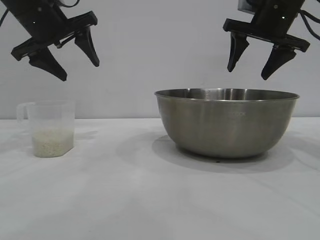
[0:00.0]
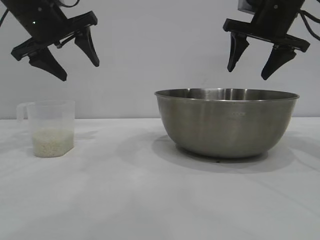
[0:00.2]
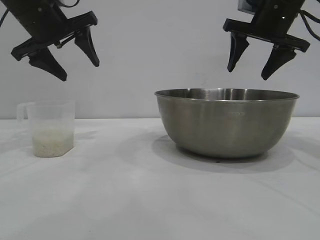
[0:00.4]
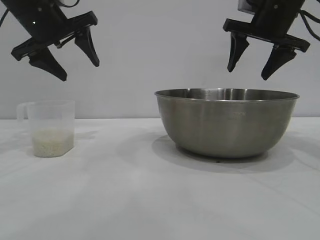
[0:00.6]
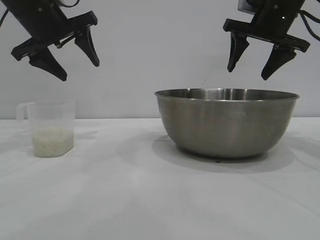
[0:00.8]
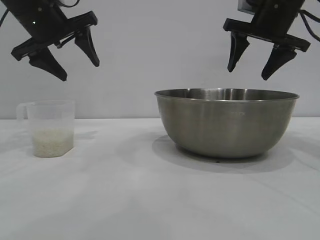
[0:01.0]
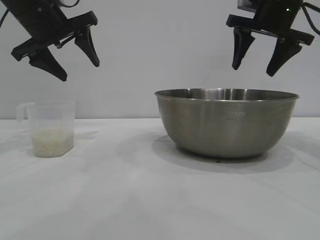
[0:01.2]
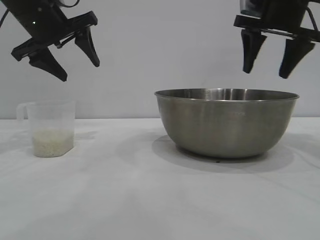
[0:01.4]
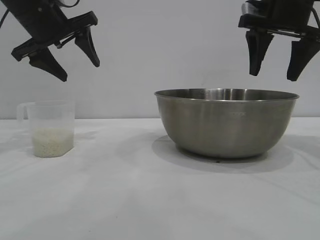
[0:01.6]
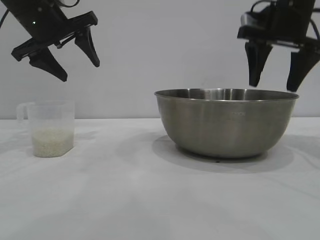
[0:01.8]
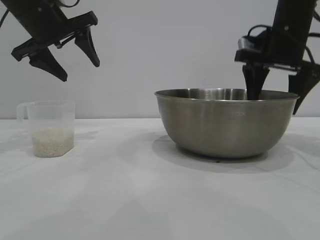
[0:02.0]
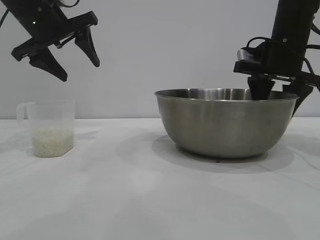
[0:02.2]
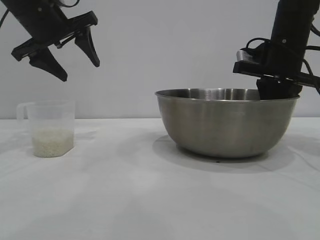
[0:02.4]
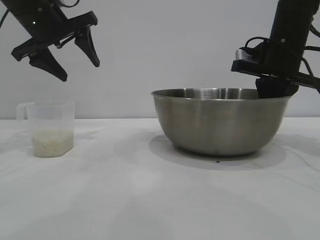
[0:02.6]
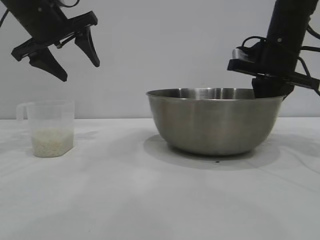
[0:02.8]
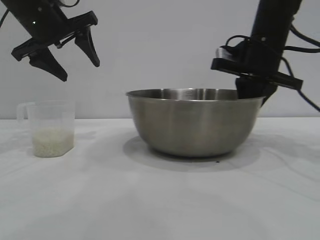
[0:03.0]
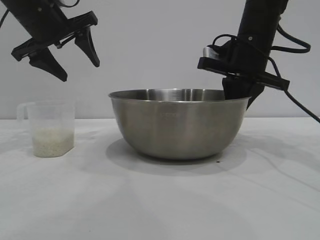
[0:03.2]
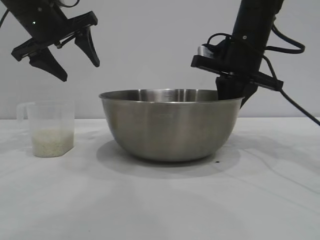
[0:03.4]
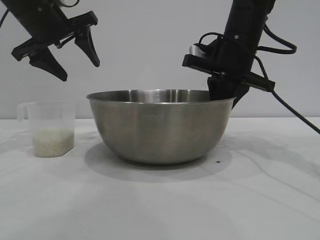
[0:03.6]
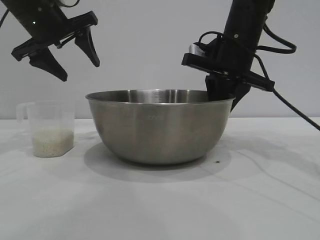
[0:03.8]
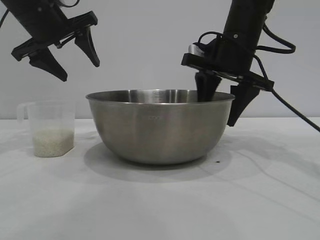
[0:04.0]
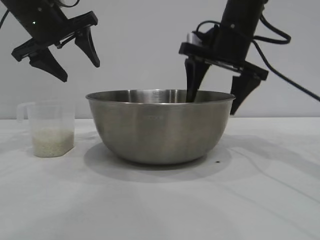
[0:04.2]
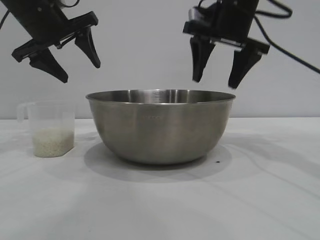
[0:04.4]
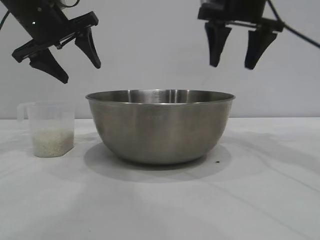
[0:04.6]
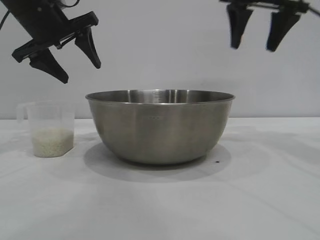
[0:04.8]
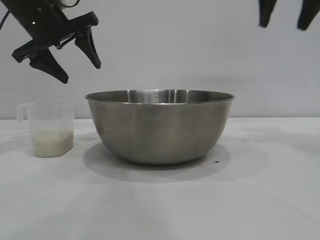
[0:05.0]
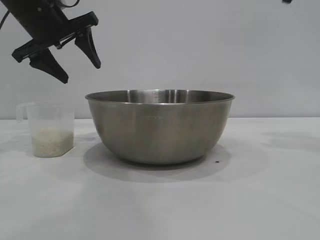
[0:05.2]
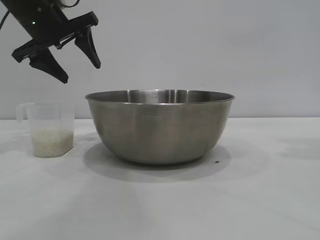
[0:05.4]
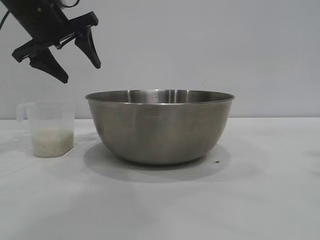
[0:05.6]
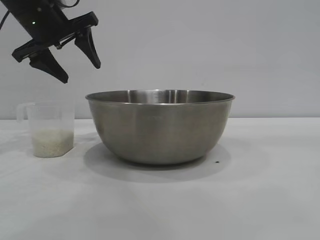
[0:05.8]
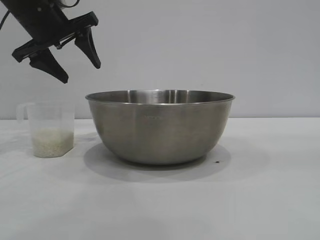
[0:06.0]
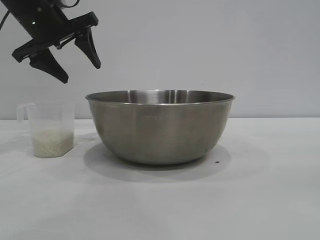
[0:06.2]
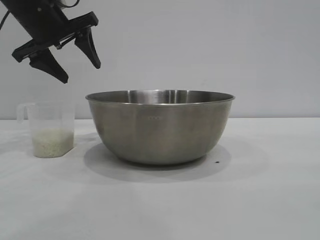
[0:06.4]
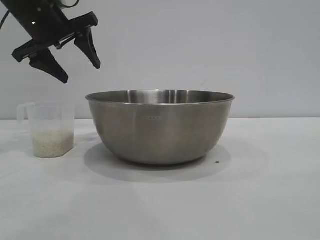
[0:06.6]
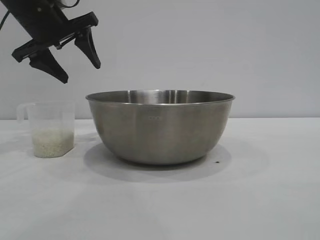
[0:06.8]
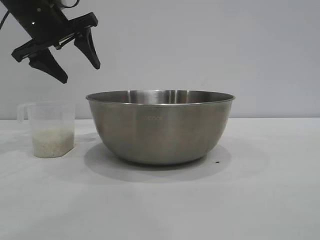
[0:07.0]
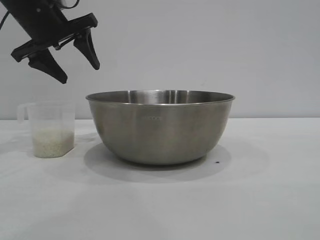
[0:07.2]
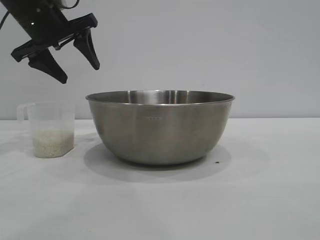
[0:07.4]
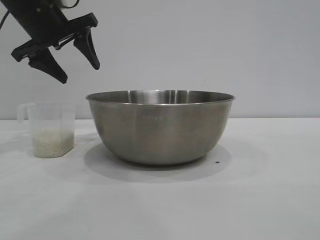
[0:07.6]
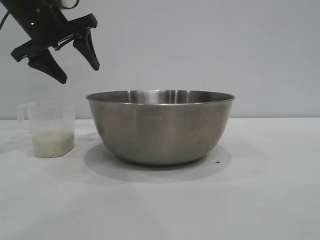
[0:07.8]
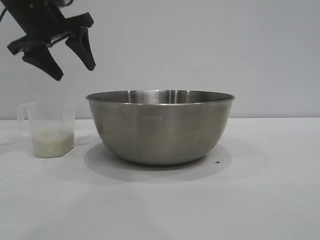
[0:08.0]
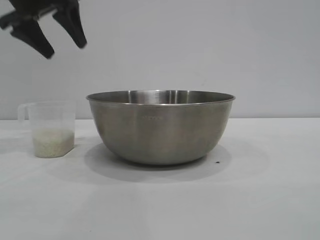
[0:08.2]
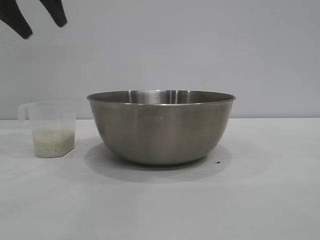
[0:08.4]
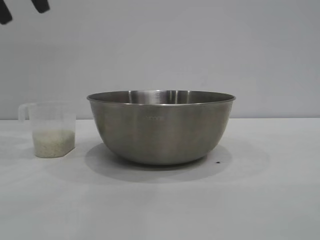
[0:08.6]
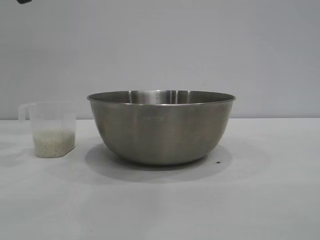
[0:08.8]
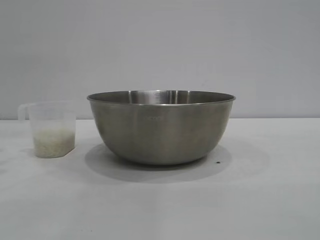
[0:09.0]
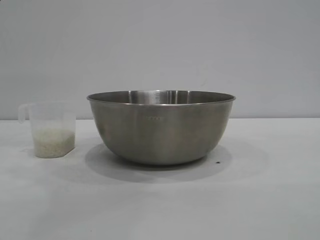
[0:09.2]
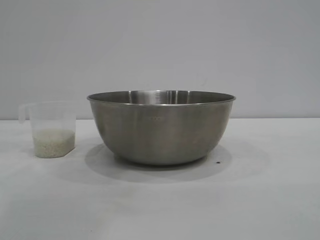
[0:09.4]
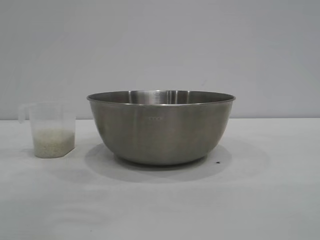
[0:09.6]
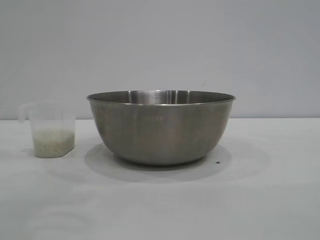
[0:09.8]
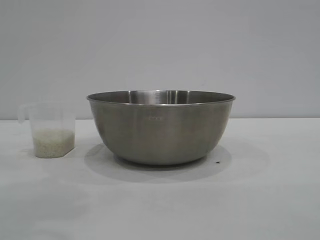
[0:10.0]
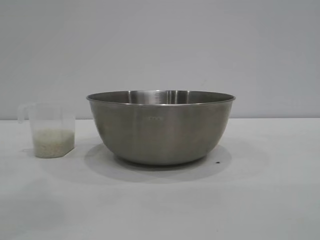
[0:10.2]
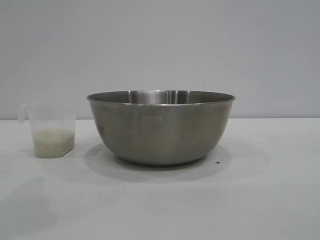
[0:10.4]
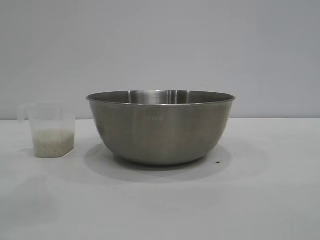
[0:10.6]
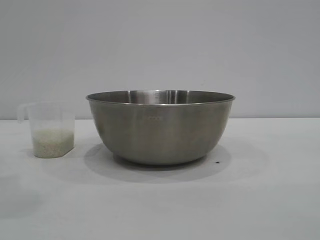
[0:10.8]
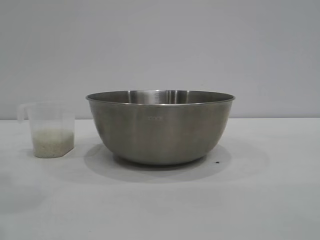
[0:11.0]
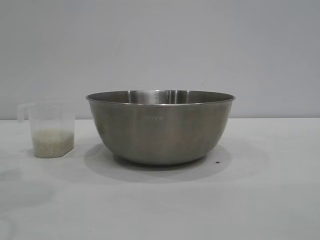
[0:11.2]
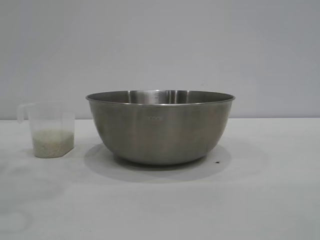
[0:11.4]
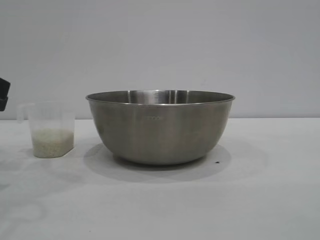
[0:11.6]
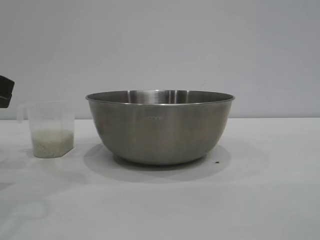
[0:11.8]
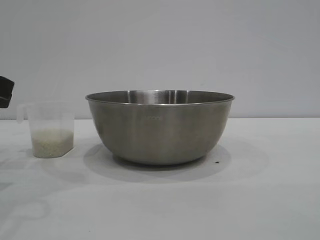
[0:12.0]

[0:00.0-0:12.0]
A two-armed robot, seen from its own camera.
Task of the whole recording: the right gripper grasp the rice container and place it in the center of the table, the left gripper grasp the rice scoop and pour the rice into the rice container.
Step, 0:00.0 to 0:04.6: Move the bowl to the center of view with the right gripper.

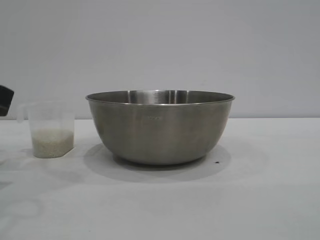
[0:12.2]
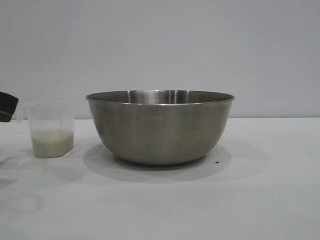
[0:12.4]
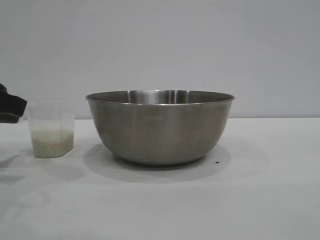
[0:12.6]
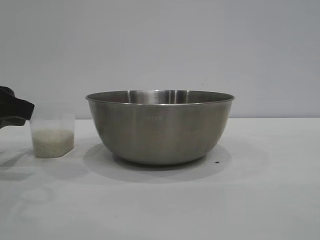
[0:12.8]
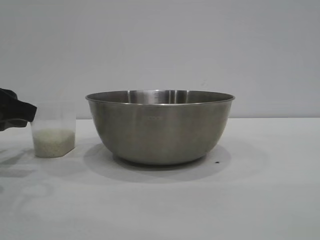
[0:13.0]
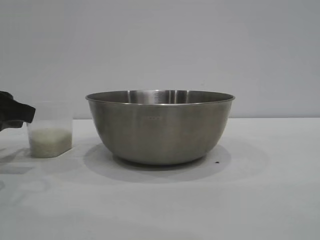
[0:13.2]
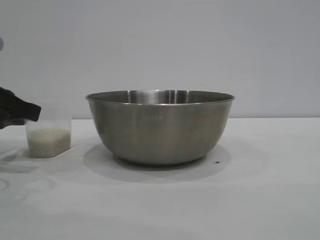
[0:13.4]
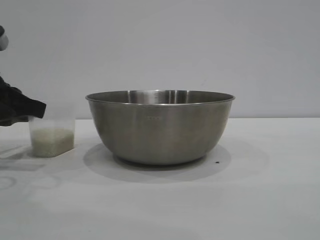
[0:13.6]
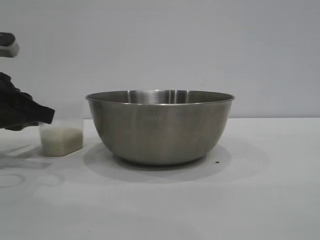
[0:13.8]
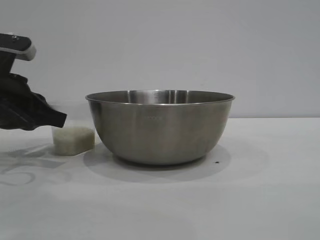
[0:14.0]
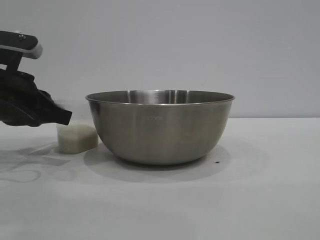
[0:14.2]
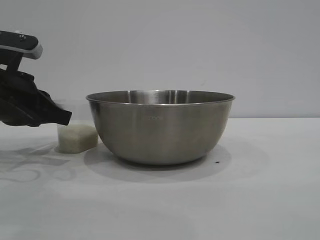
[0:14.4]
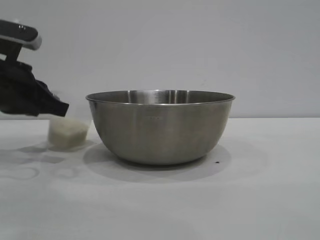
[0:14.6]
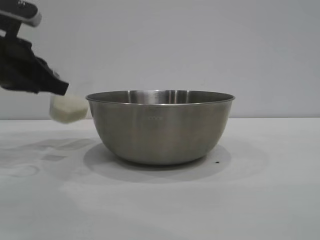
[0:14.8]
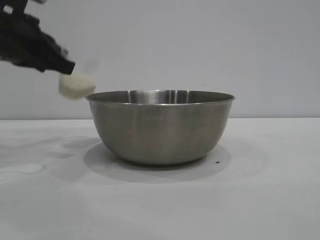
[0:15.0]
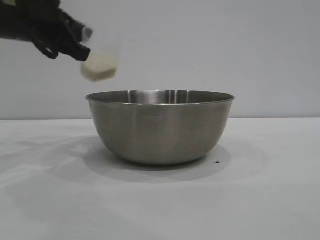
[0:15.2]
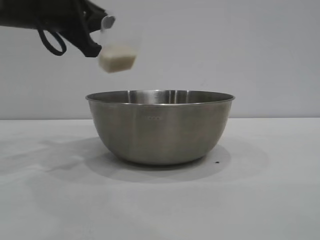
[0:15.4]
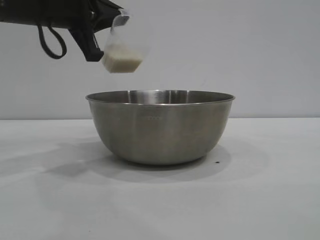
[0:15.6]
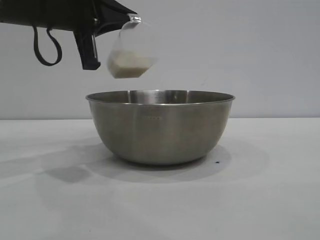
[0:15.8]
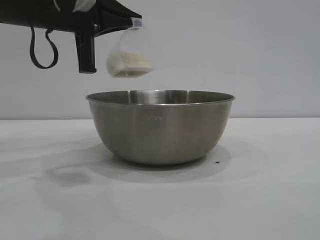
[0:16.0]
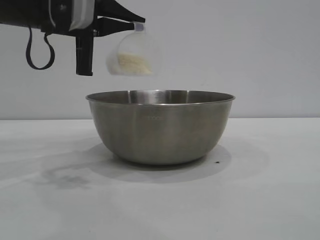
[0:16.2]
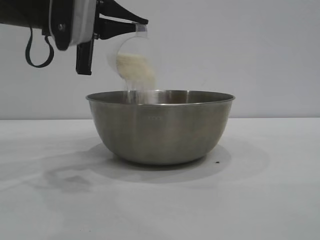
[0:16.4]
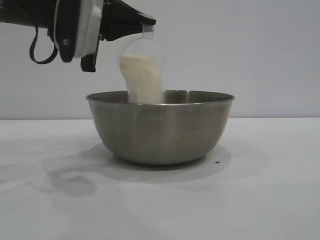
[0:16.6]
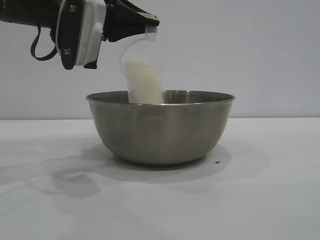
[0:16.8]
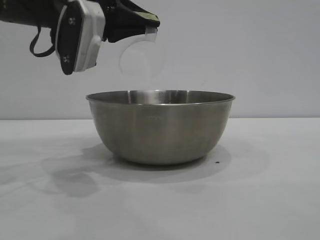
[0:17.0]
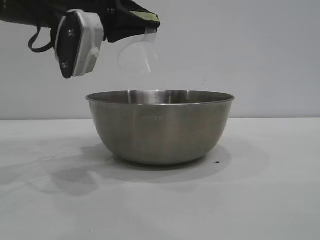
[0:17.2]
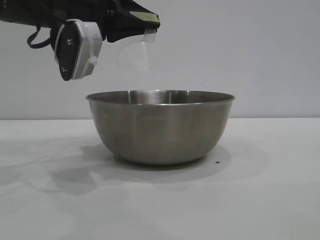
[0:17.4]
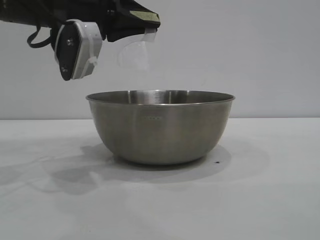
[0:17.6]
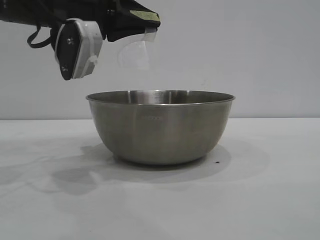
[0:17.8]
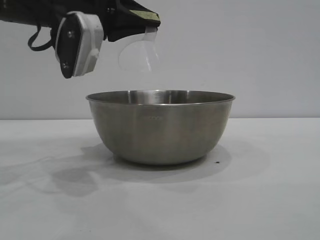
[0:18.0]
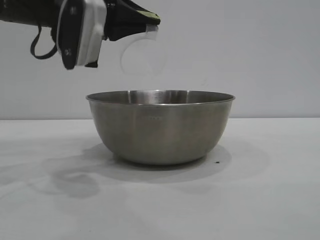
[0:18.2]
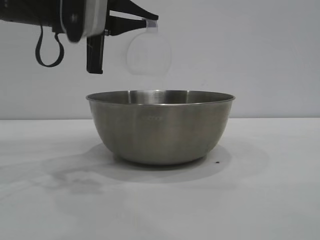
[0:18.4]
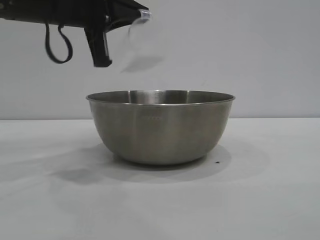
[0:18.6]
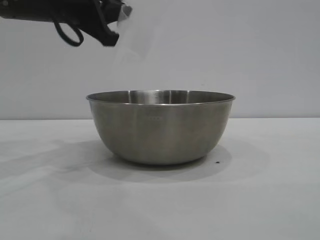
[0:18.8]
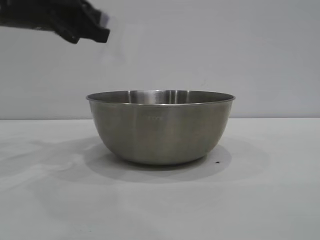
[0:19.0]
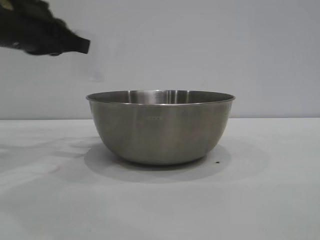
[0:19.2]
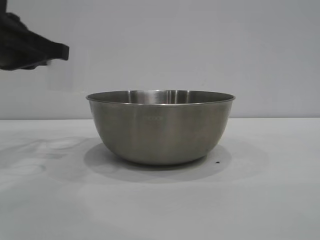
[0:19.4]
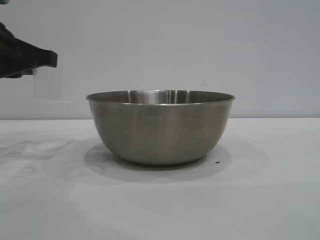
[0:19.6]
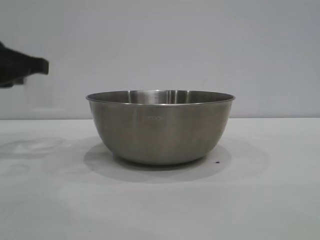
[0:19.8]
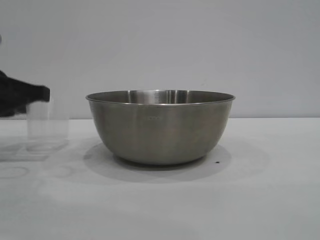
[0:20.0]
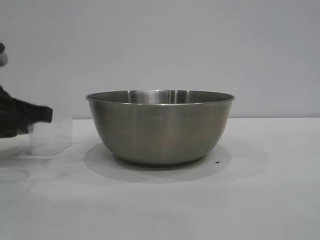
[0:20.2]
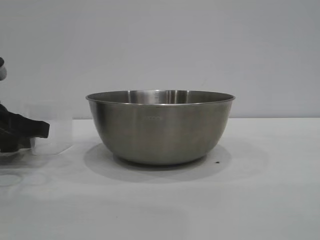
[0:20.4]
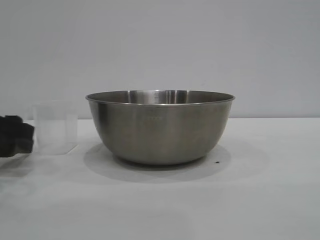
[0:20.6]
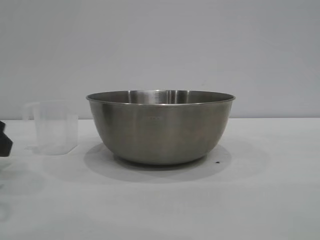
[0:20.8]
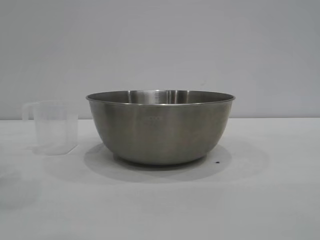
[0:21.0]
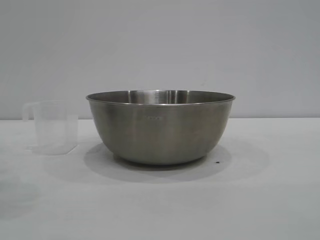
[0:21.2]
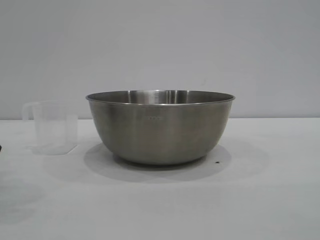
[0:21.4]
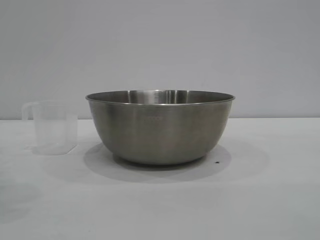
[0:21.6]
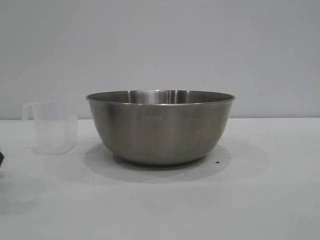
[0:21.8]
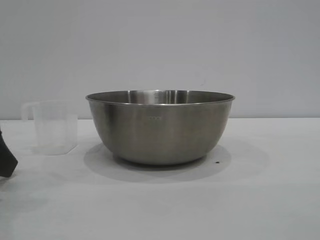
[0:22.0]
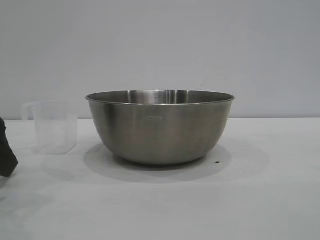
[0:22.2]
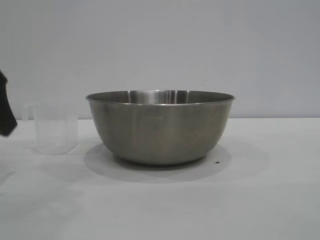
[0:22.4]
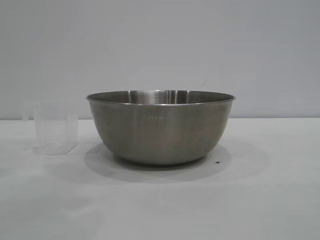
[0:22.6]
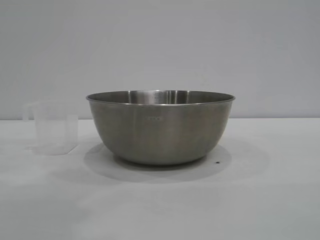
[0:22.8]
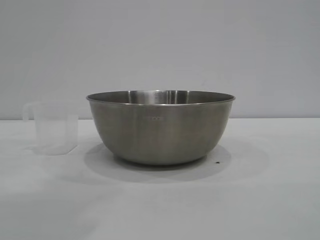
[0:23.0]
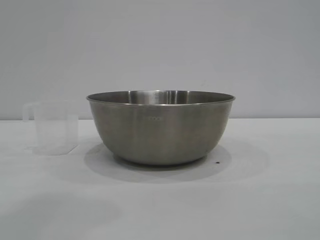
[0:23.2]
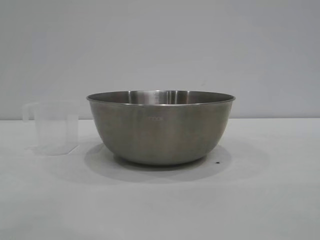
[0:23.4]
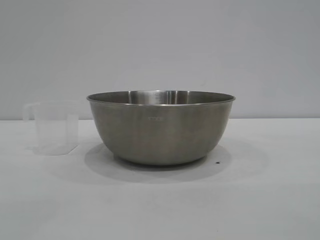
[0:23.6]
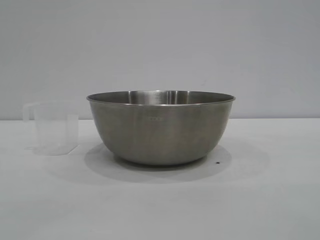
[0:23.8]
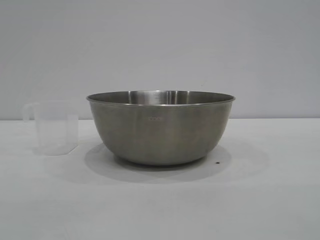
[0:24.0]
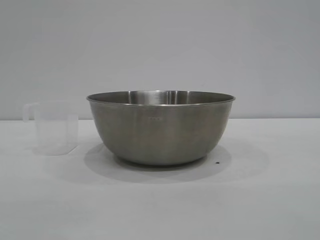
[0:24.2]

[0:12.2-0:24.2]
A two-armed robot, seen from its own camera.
Task of the whole recording: the right gripper grasp the rice container and place it in the center of the table, the left gripper grasp the rice scoop and pour the rice into the rice container.
Step, 0:12.2 to 0:14.6: Pick up the cup with rice in it with the left gripper.
Step, 0:14.8 to 0:17.0: Pour the rice from the cup into the bowl with the left gripper.
Step, 0:17.2 to 0:20.6: Place the cup on the table with the left gripper.
